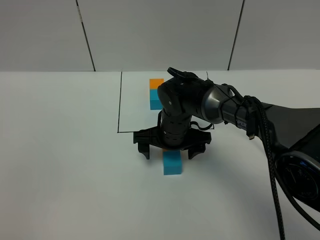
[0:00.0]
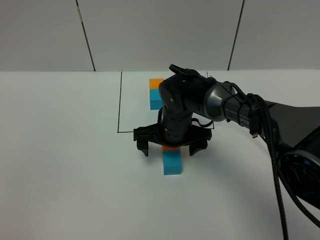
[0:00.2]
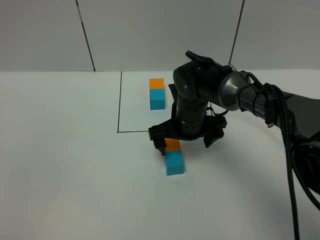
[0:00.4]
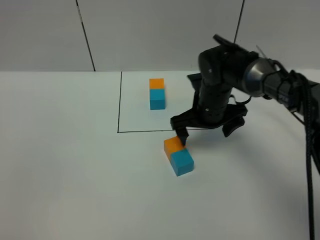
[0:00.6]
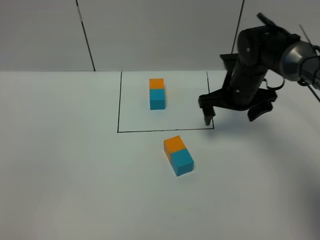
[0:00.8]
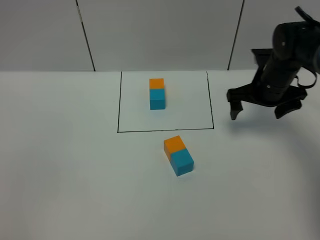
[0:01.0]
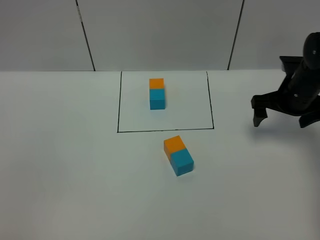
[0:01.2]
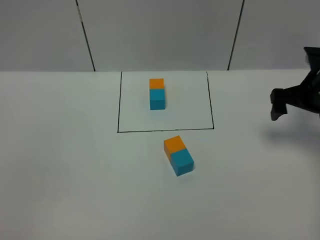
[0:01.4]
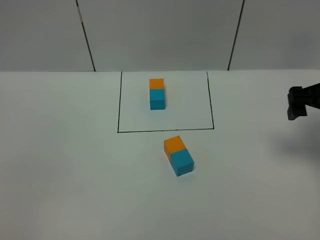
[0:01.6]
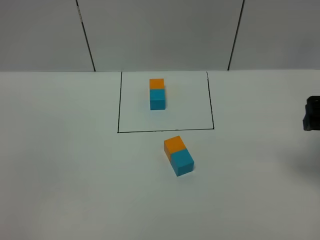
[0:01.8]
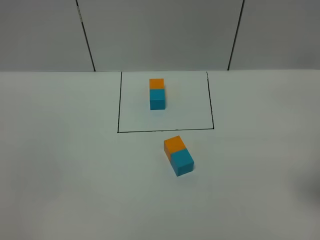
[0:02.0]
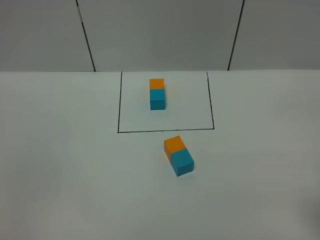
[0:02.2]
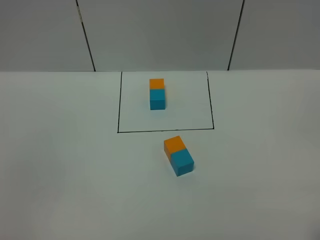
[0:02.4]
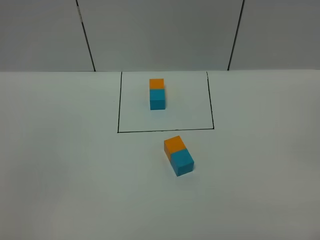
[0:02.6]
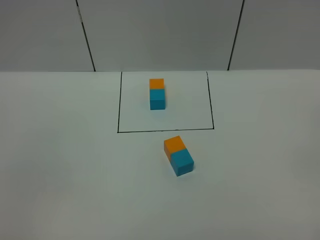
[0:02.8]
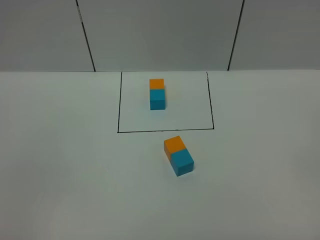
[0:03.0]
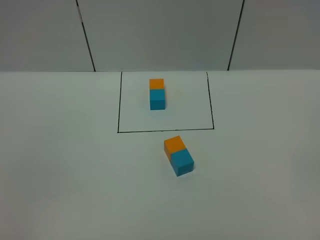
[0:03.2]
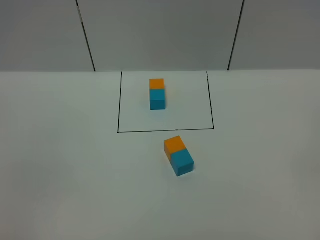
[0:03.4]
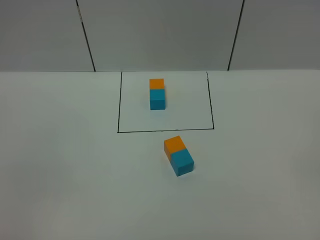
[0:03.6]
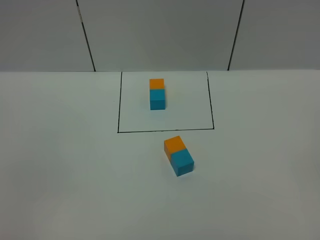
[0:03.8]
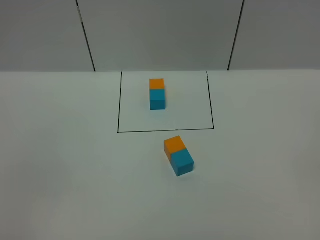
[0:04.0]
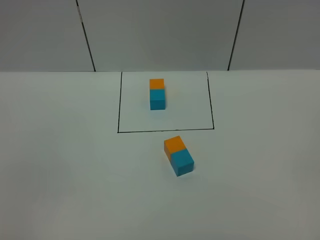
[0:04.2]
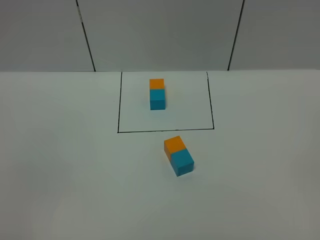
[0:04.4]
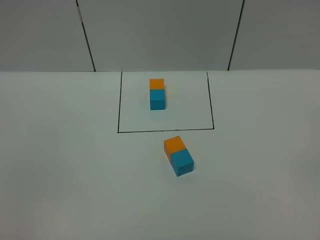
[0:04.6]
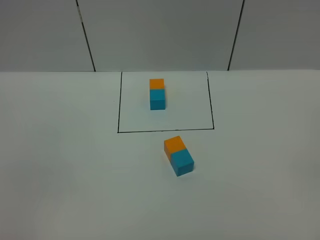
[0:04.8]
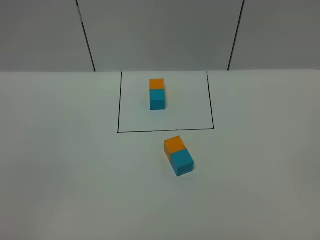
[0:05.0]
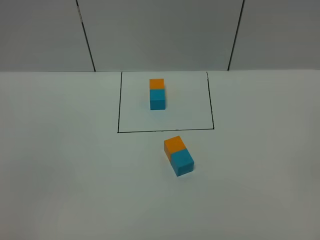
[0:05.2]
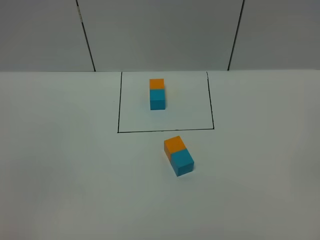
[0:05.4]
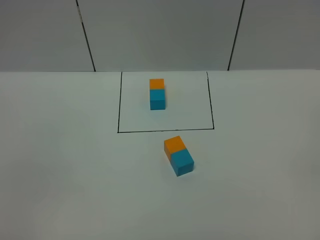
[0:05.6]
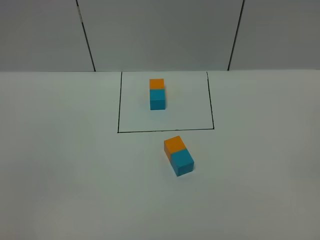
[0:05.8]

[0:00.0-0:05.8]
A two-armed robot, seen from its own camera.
Task of the whole recording: According to the building block template in front, assemble the scattered blocks together.
0:00.0 to 0:01.4: The right gripper moves to the right, approximately 25 cm.
0:01.4 to 0:02.8: The right gripper is displaced backward by some 35 cm.
0:04.4 to 0:05.8: Both grippers stay about where they are.
